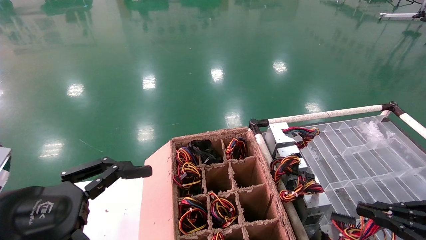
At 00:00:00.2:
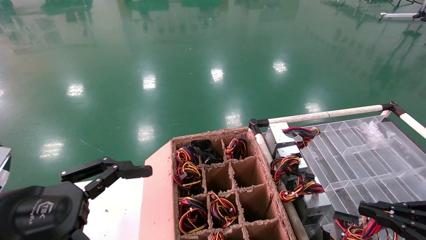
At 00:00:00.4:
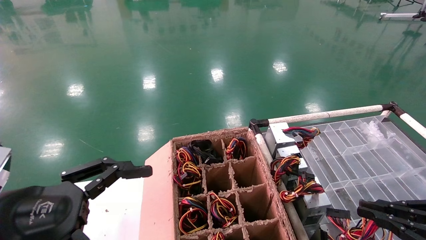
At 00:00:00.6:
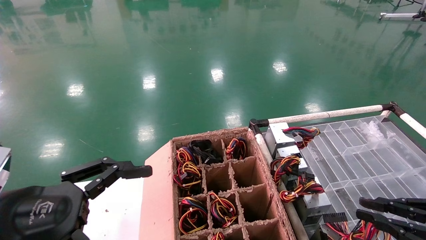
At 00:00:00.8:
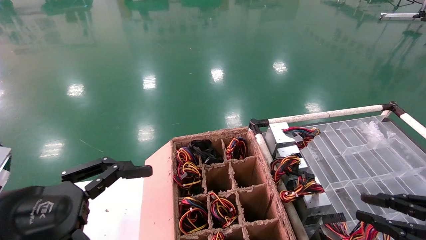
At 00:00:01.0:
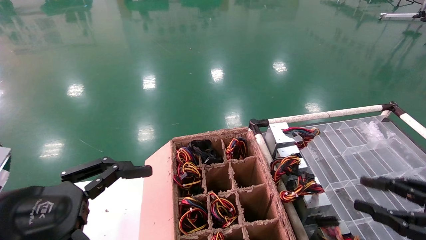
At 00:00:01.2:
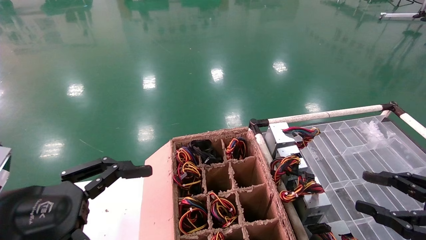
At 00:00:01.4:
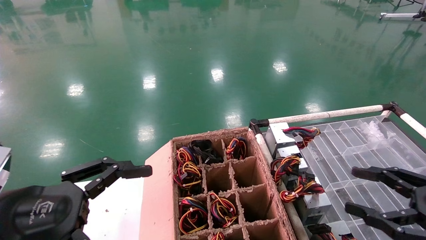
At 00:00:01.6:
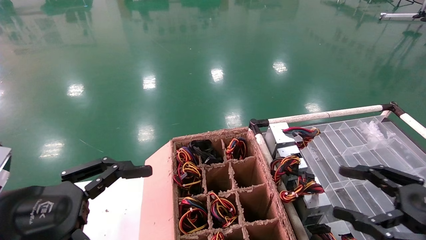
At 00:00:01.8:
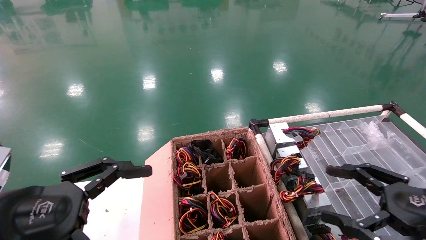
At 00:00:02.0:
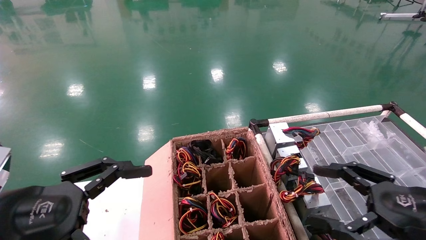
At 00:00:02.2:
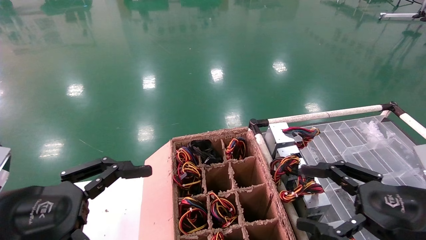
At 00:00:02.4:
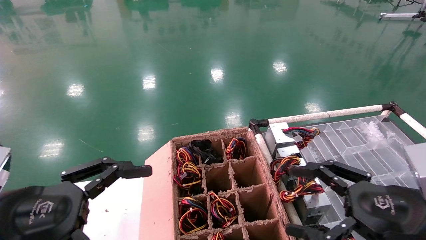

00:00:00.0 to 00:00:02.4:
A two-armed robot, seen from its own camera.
00:00:00.0 to 00:00:01.2: The right gripper opens its fingers.
00:00:01.2 to 00:00:02.4: The right gripper goes about 10 cm to the left, and opens up.
